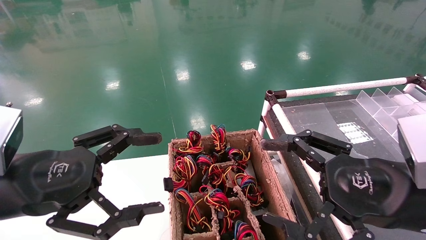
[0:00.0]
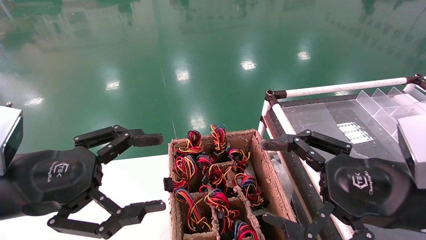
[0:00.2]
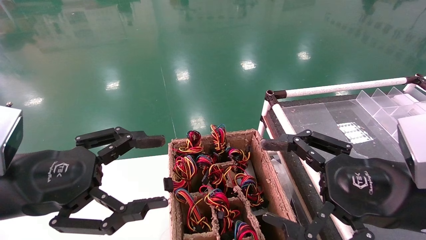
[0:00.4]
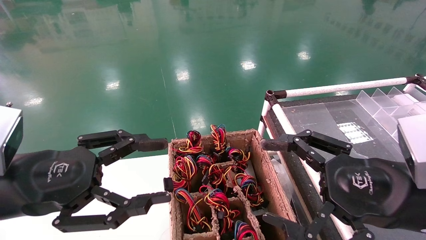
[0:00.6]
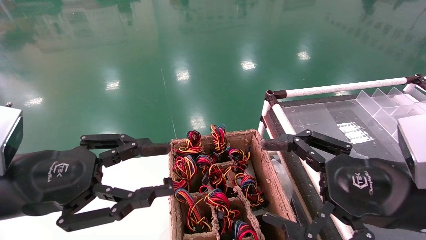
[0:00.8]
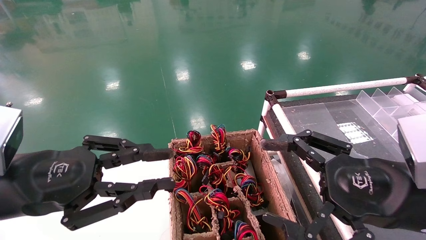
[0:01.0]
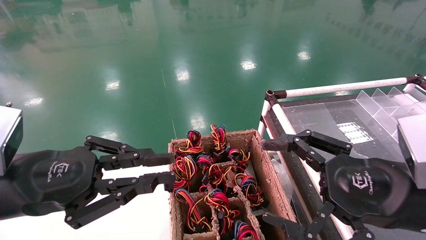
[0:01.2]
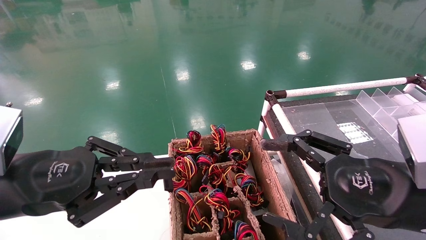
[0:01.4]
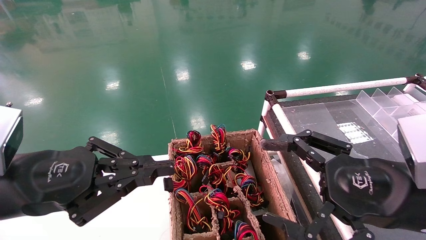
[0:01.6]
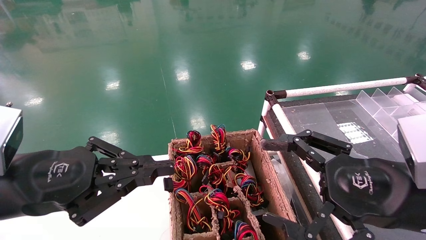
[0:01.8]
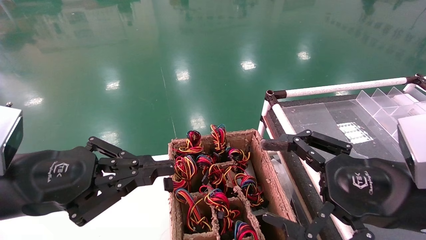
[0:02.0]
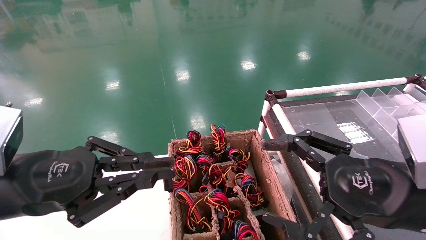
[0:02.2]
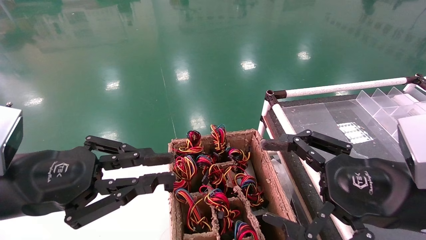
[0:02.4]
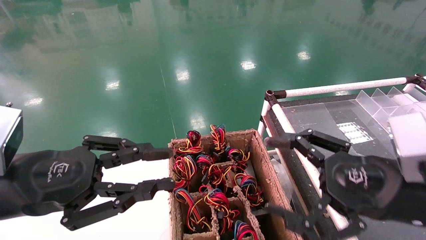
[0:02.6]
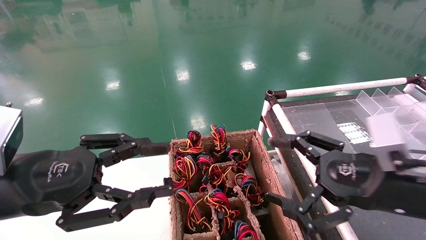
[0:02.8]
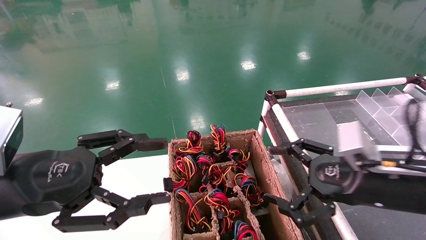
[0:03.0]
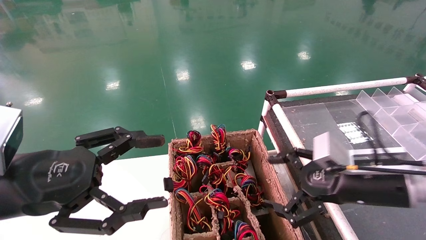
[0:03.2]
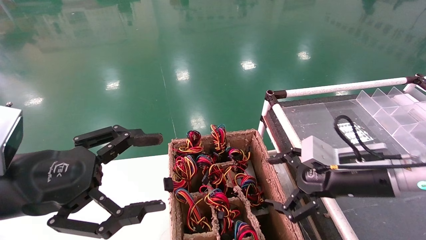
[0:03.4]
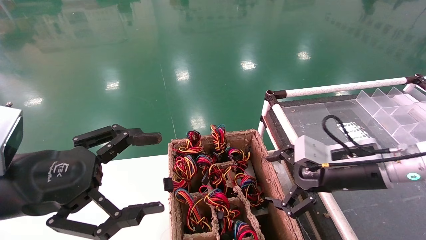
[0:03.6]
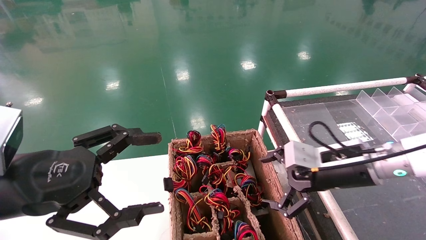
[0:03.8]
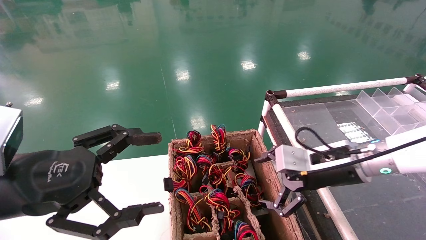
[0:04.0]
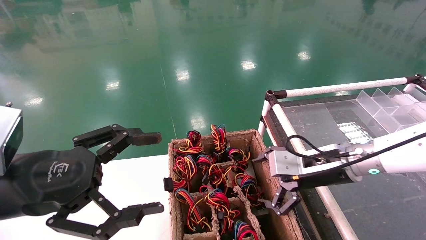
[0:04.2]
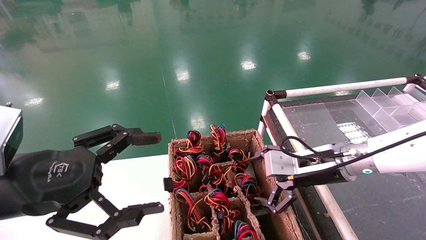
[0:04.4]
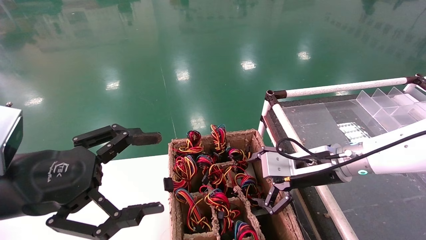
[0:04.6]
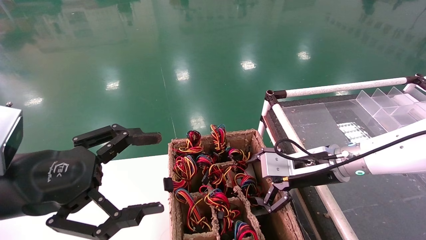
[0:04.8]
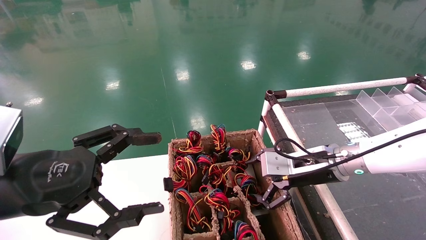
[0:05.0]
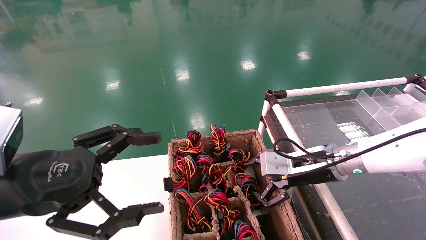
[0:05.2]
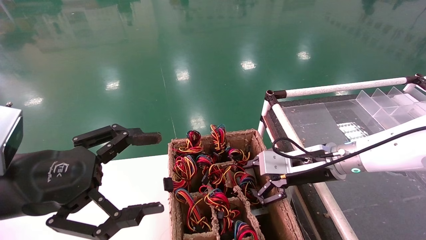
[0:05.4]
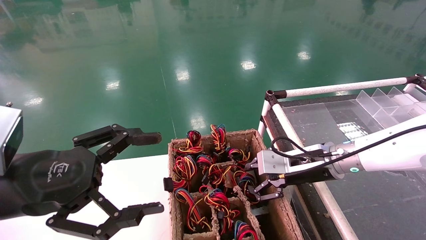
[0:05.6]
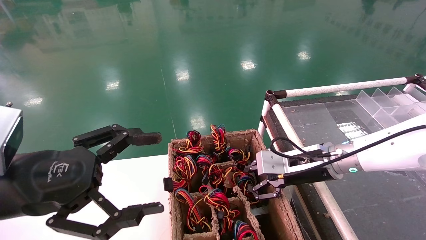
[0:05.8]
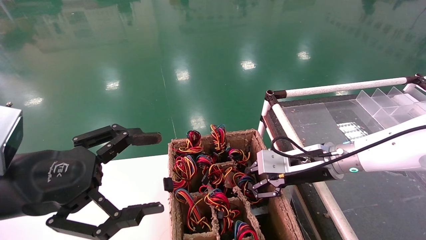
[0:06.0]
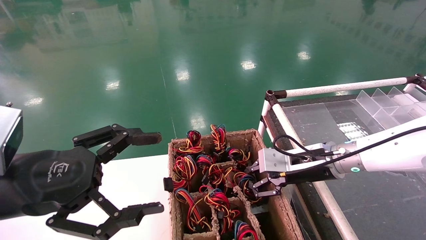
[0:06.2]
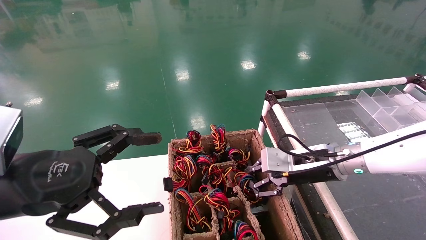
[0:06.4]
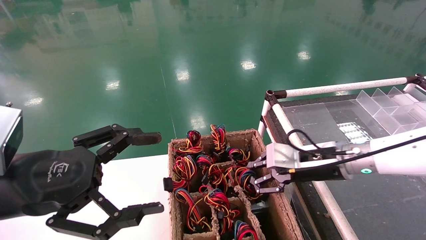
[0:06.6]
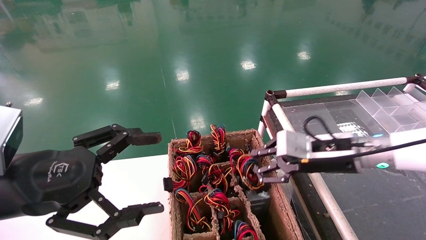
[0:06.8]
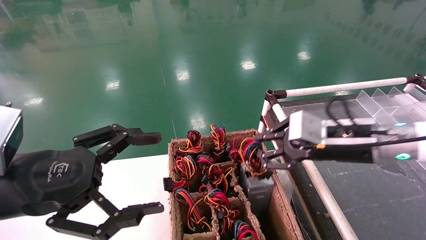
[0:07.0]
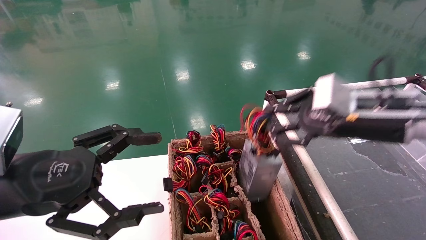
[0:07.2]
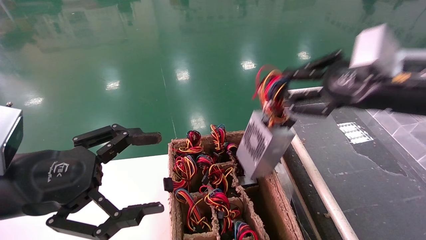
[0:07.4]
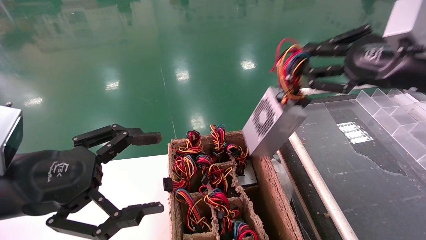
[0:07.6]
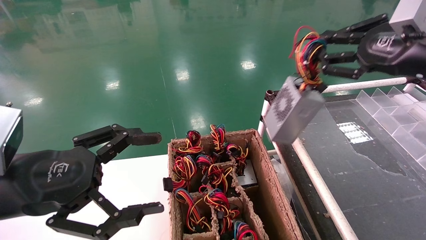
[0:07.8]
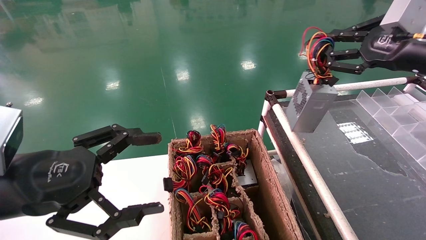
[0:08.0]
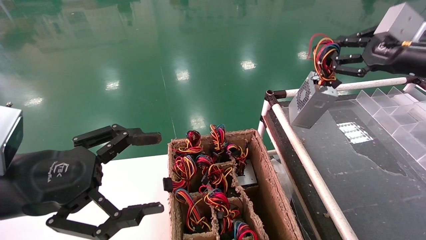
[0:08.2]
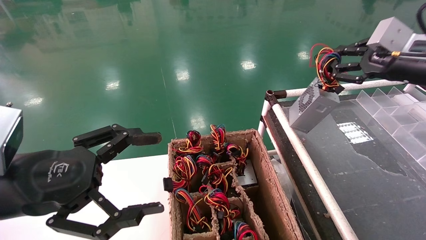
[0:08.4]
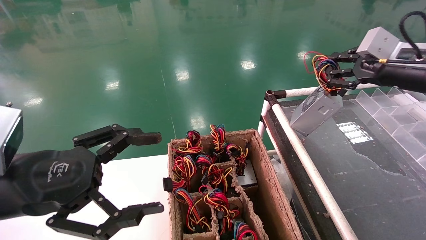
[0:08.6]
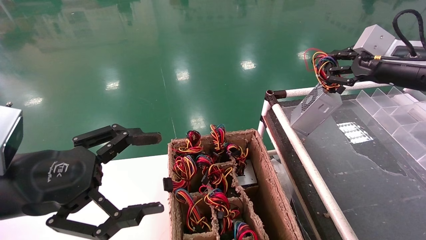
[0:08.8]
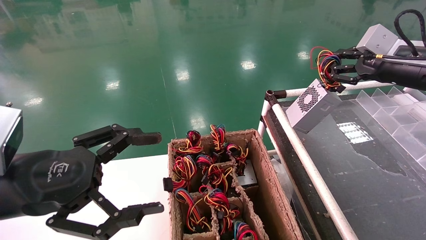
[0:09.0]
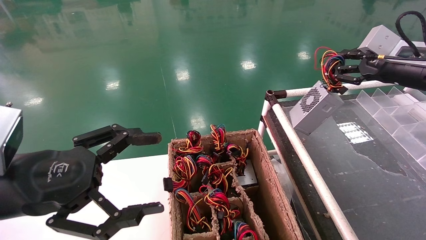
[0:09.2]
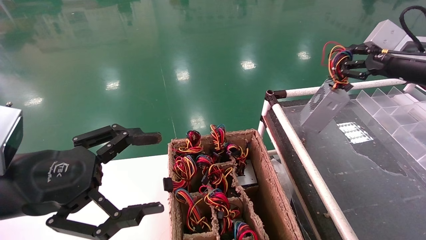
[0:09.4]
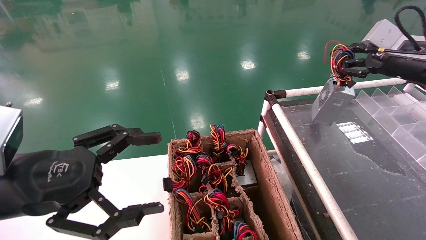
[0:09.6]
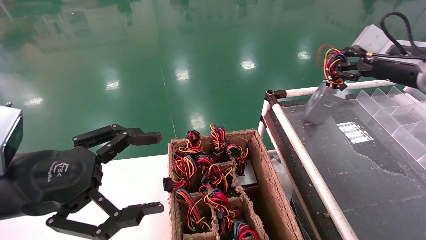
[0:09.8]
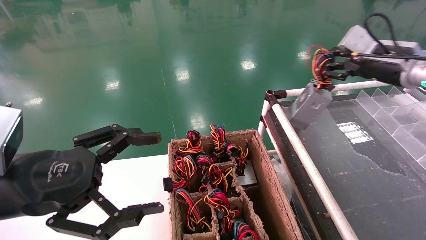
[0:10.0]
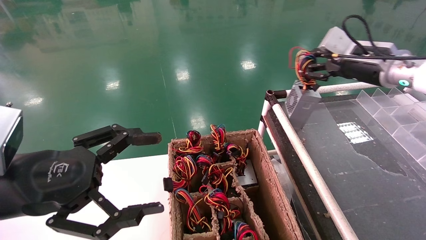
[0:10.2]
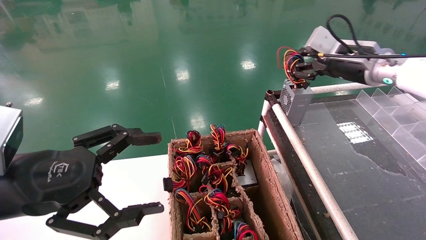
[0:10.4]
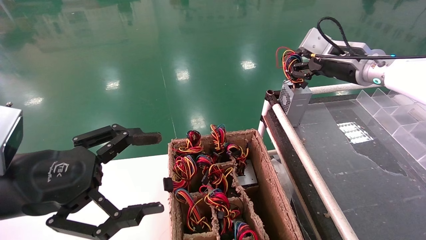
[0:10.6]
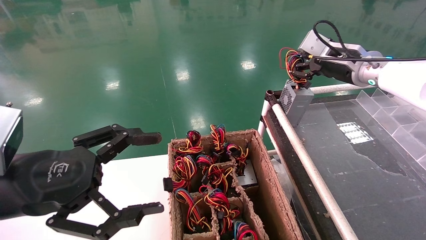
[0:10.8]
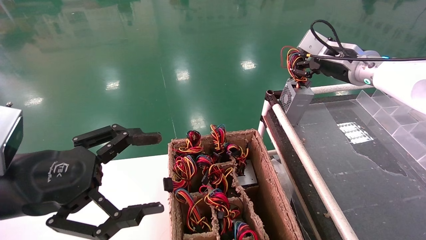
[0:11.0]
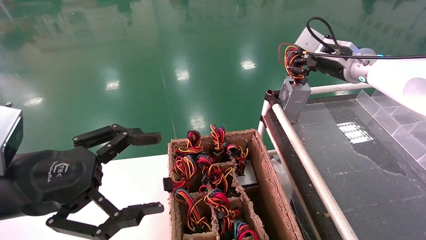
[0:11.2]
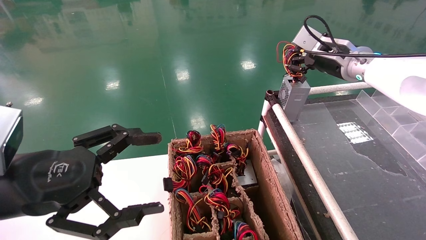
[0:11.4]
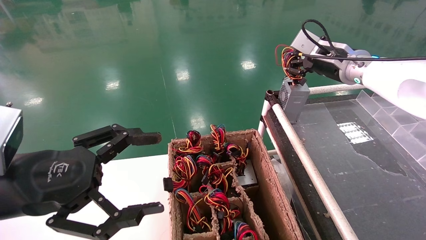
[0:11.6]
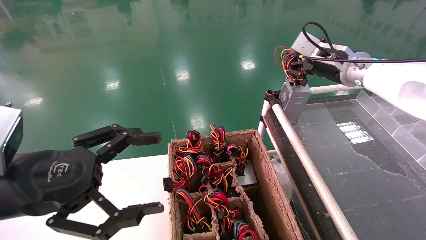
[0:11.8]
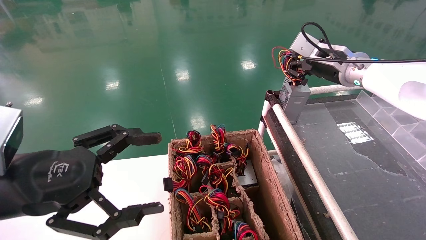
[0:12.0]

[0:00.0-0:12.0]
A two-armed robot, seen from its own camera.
Step, 0:01.6 to 0:06.2: Grab and lift the power supply from the large box.
0:00.0 to 0:01.6: The left gripper closes its fingers.
0:01.6 to 0:03.0: The left gripper opens; the right gripper shifts some 5 cm forward.
0:03.0 to 0:04.4: The right gripper shifts roughly 10 cm forward and to the left. The left gripper opens its fingers.
0:04.4 to 0:06.0: The right gripper closes its fingers.
0:06.0 to 0:07.6: The right gripper heads upward, to the right and backward, covering approximately 20 cm.
0:07.6 to 0:09.0: The right gripper moves forward and to the right, about 10 cm.
0:09.0 to 0:10.4: The right gripper goes some 10 cm to the left and forward.
0:10.4 to 0:12.0: The grippers move only a little.

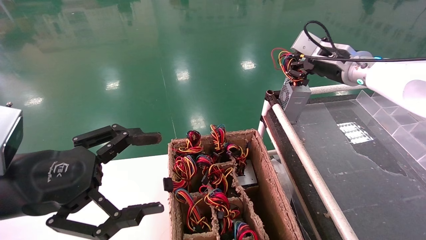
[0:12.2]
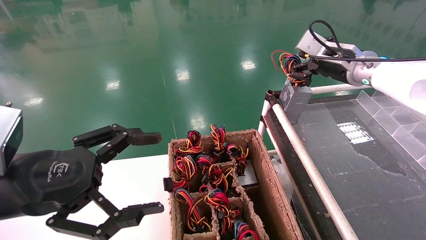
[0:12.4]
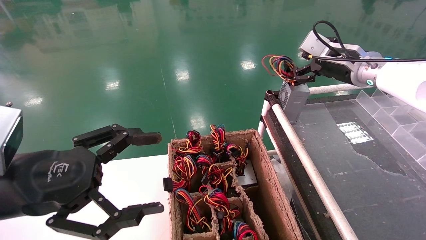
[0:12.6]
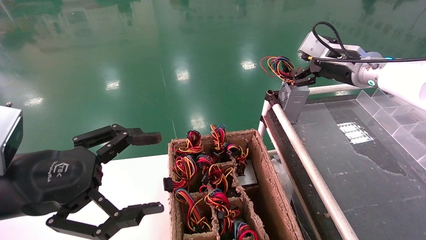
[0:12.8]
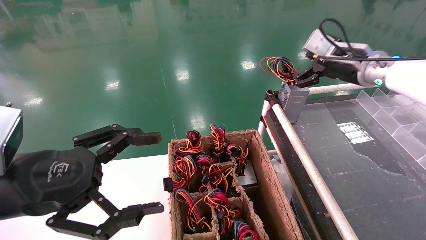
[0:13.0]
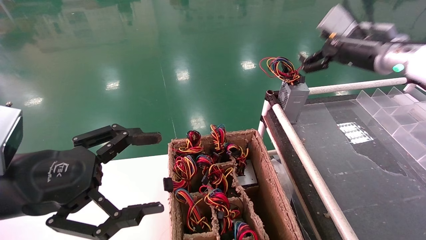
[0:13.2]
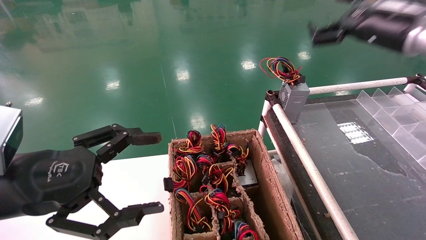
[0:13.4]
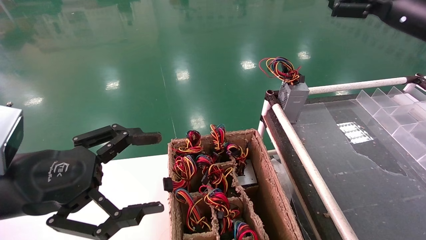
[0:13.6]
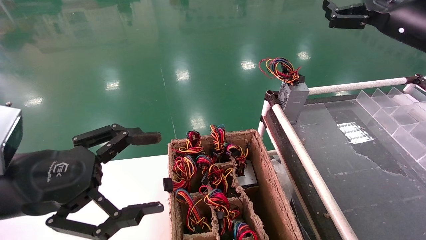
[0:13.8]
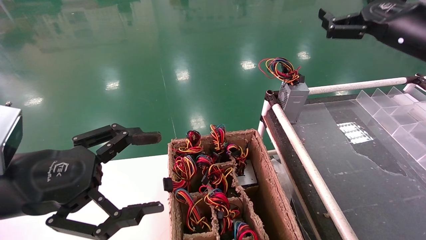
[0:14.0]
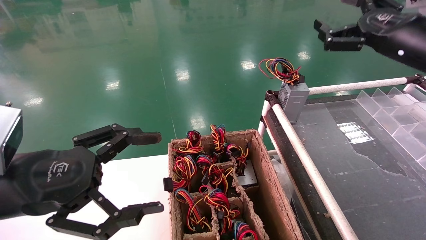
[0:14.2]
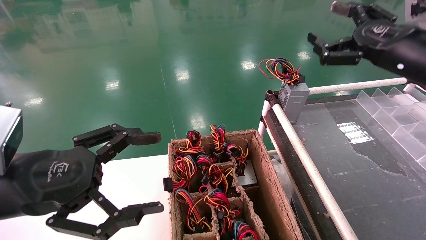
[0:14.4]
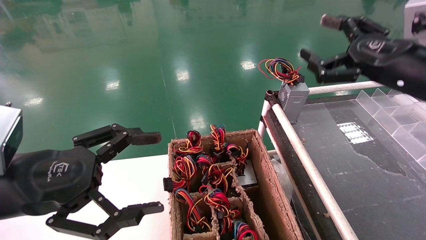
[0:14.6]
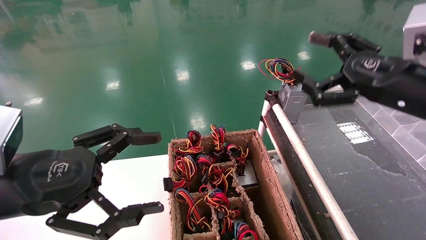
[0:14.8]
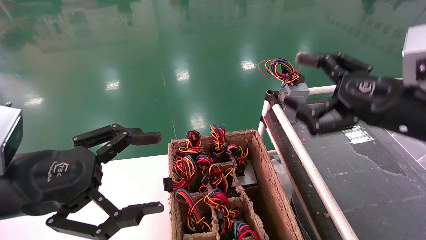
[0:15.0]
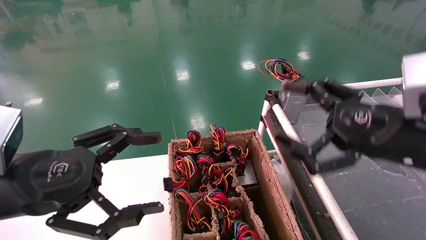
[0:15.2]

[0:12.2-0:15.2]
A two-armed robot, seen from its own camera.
0:12.2 to 0:13.8: The right gripper shifts some 15 cm backward, to the right and upward, and opens its fingers.
0:13.8 to 0:15.2: The right gripper heads backward, downward and to the left, covering approximately 20 cm.
